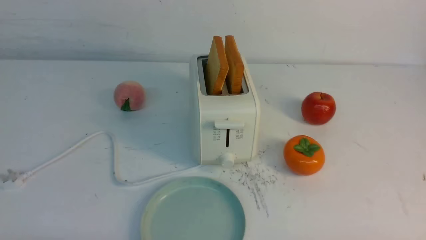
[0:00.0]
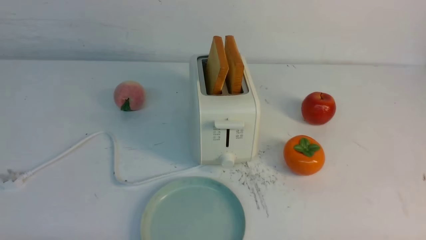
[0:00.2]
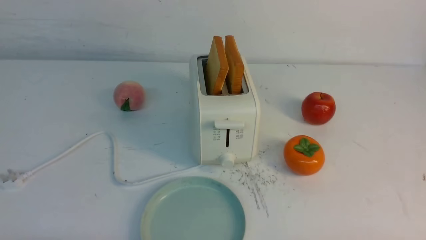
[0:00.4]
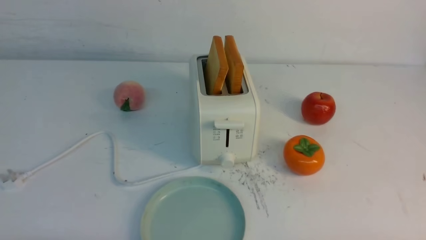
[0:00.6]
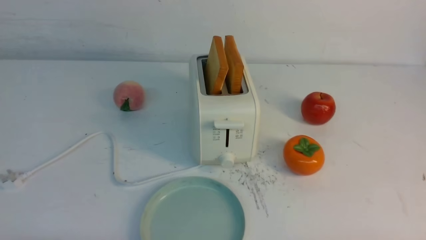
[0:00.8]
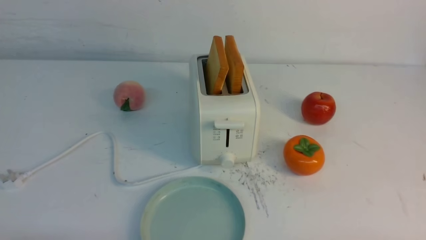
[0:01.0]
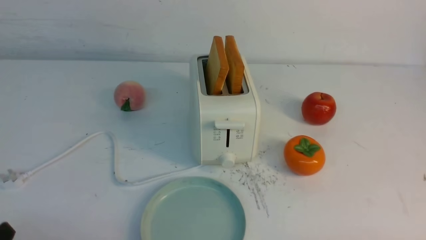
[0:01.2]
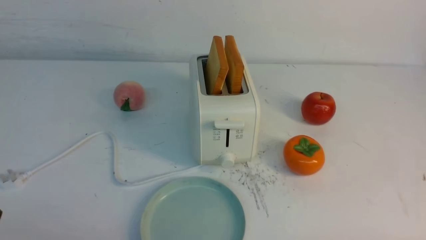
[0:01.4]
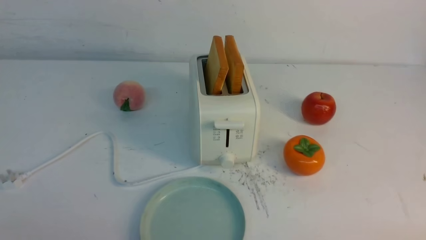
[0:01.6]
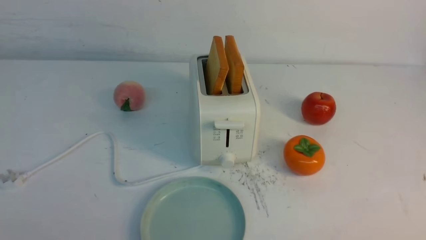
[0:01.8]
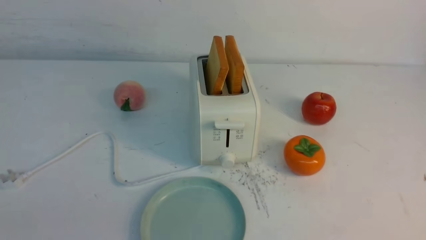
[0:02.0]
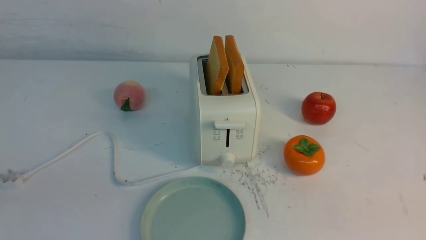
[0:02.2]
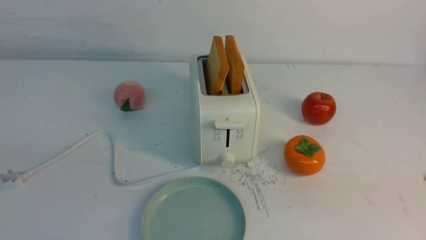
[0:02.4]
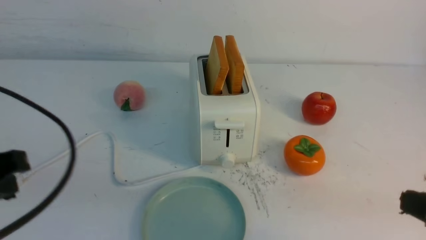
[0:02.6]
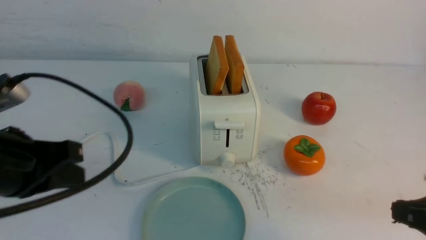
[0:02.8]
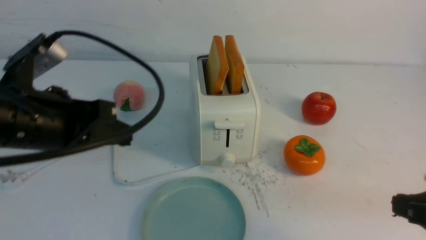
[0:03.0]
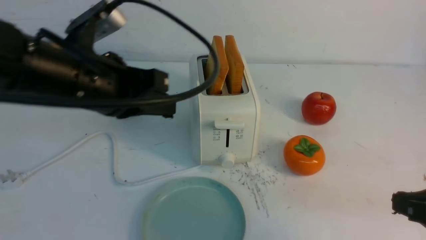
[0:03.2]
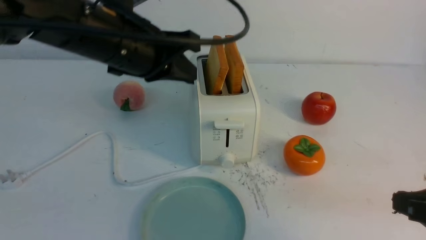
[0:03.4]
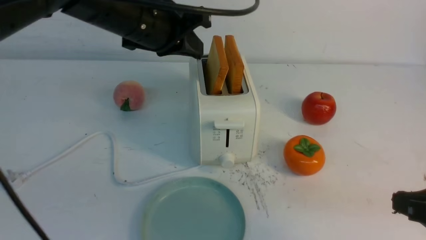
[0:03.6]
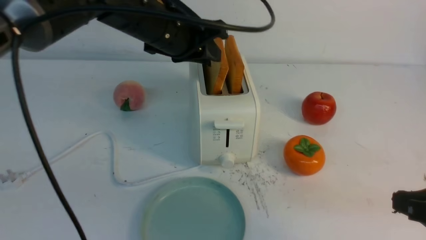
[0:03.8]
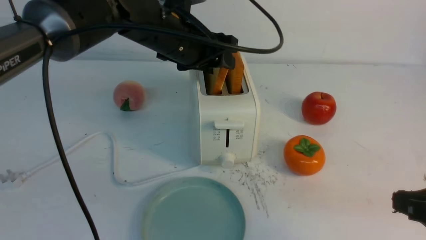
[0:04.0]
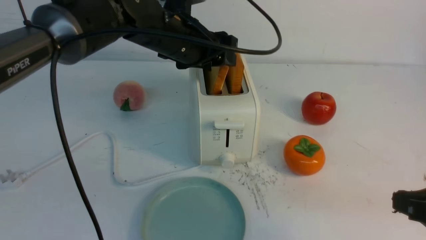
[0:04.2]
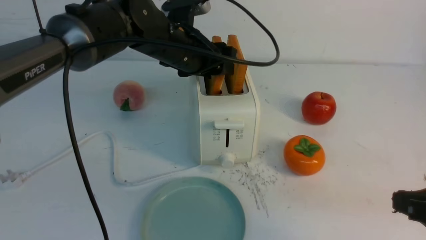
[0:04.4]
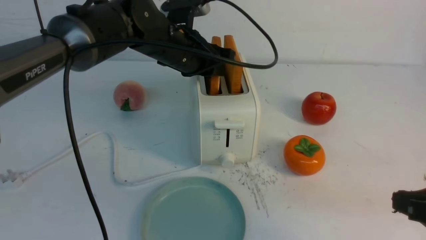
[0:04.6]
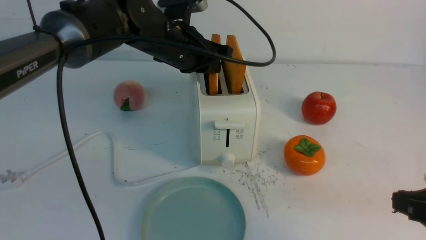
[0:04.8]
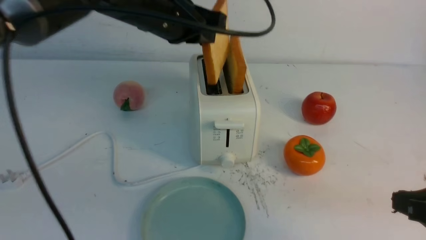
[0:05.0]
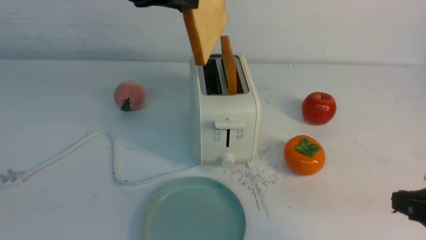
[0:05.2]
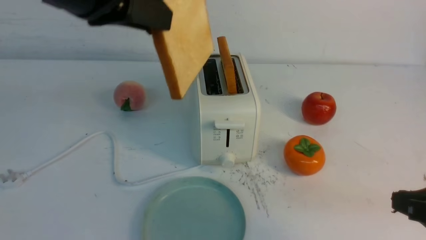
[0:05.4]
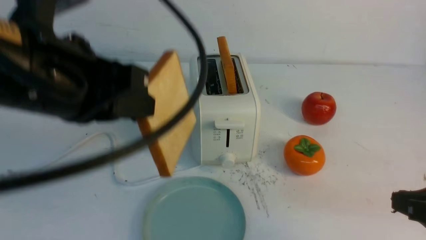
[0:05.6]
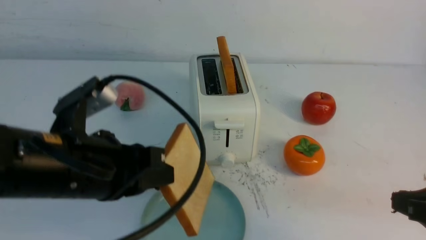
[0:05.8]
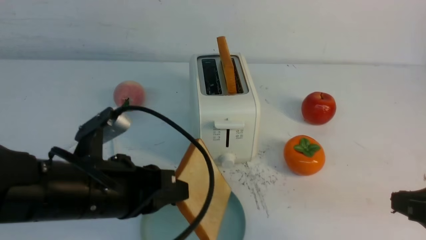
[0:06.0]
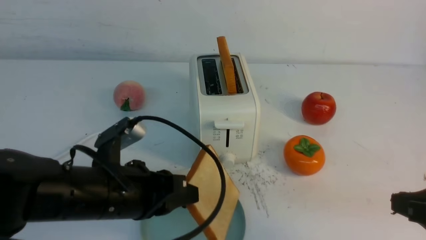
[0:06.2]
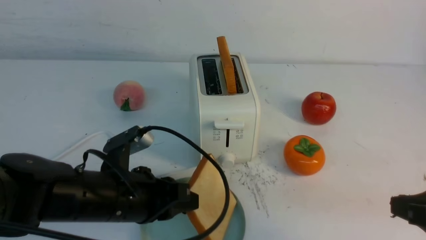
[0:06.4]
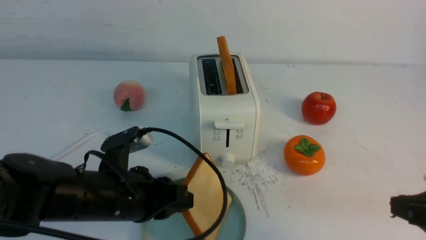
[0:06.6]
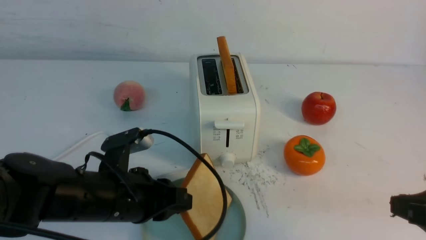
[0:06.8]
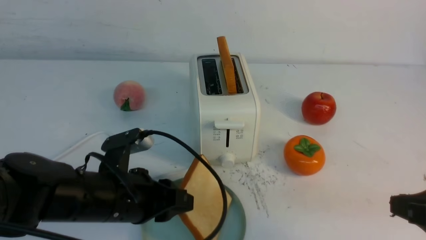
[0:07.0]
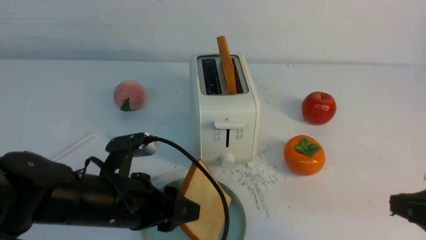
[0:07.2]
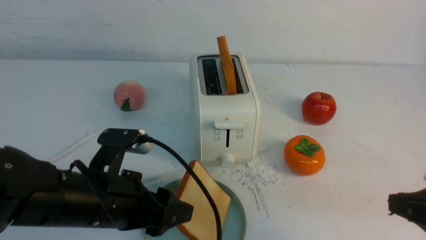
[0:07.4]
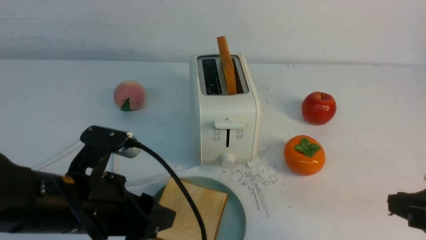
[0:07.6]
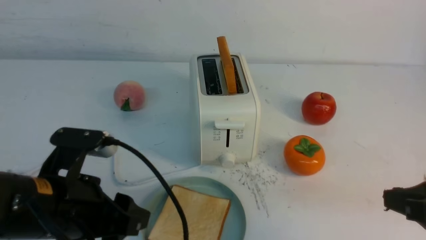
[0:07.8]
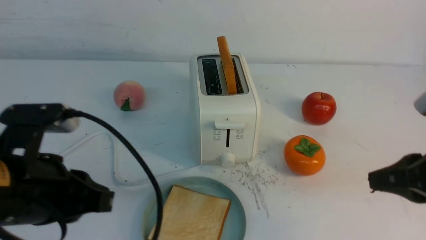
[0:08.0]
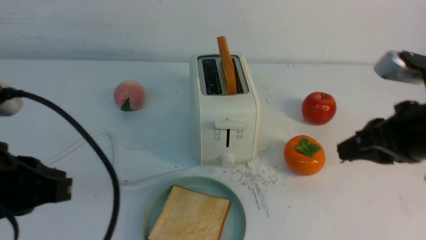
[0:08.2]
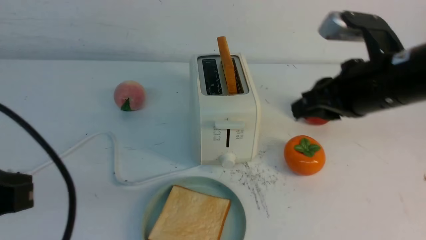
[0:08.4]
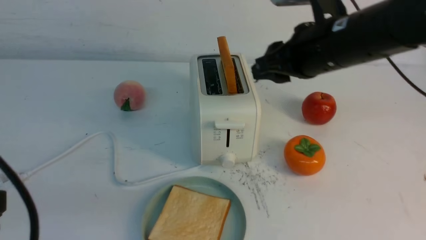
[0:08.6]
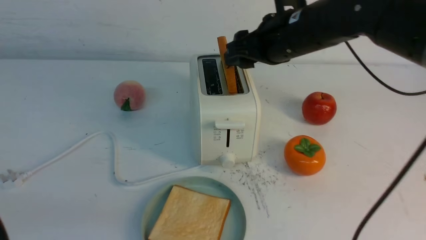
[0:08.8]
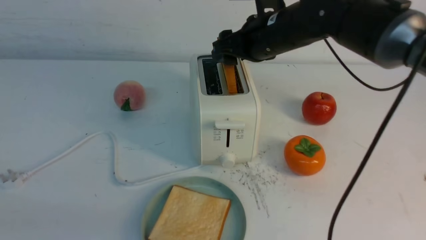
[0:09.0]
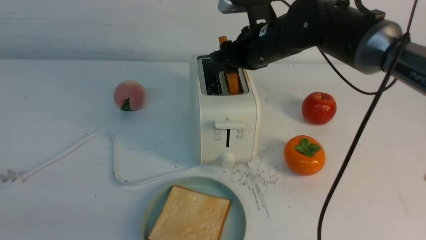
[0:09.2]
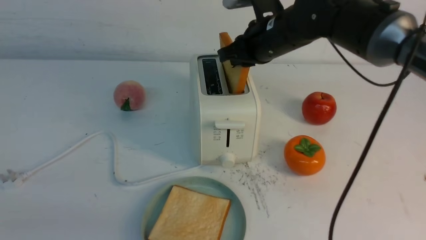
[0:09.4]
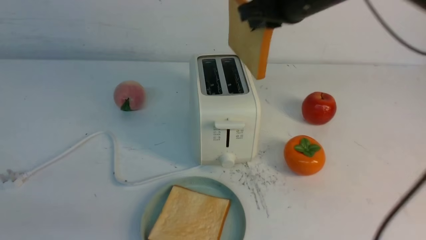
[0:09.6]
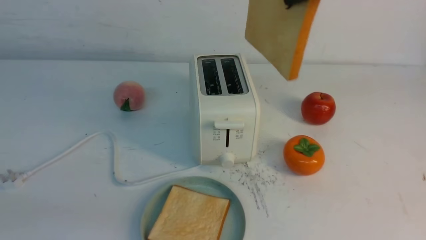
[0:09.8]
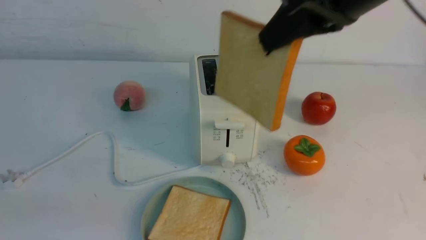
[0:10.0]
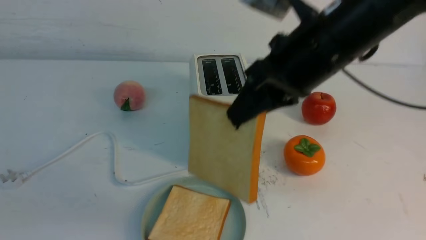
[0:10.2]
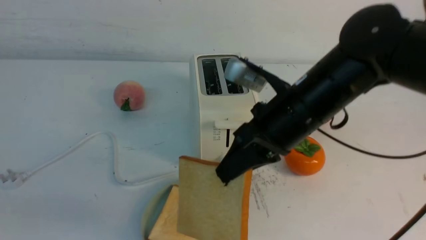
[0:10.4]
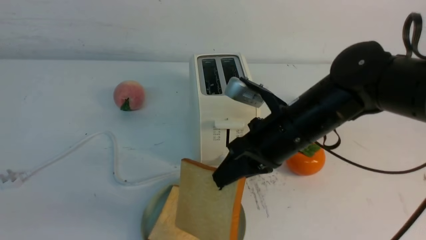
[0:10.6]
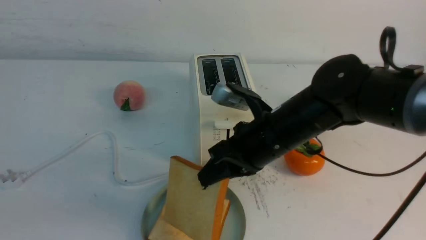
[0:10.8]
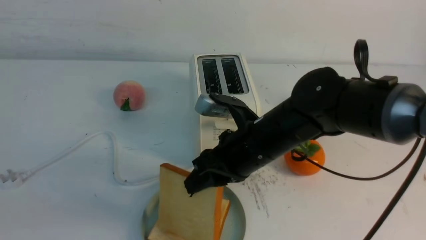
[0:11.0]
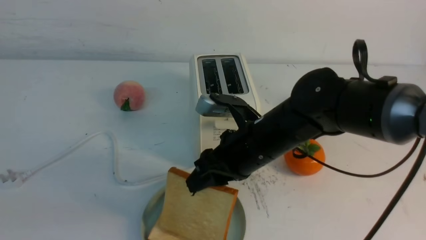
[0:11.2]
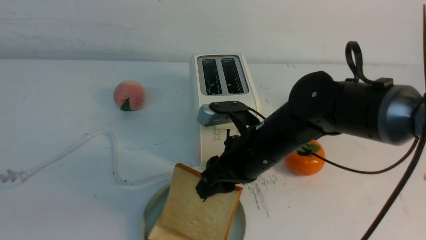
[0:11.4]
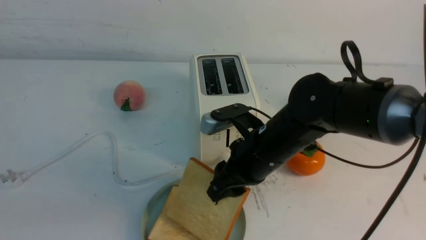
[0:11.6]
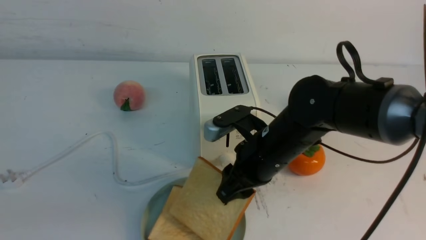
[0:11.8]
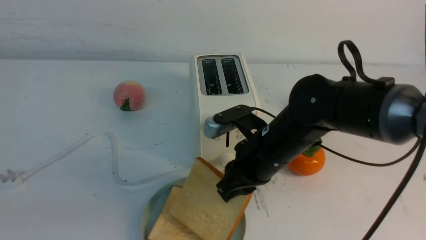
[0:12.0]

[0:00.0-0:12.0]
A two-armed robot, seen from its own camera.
Task of the whole recording: take toasted bread from bread machine on white table place on plate.
Step, 0.0 to 5.2 s: use the left arm to take out a slice of bread.
Step, 5.4 to 7.6 s: use the left arm to put a slice of bread into the empty plate.
Step, 8.0 to 9.4 s: use the right arm to take out a slice of bread.
1.6 to 3.0 s: The right gripper moves upward and forward, about 15 cm, and closes up; the left gripper goes approximately 20 cm forward, upward and to the right, and closes its fingers.
3.0 to 4.4 s: The left gripper goes some 25 cm forward and to the right, and opens up.
4.4 to 6.0 s: The left gripper is displaced backward by some 20 cm, and closes its fingers.
6.0 to 7.6 s: The left gripper opens.
7.6 to 9.0 s: The left gripper travels backward, to the left and upward by about 20 cm, and closes its fingers. The right gripper goes some 30 cm forward and to the left, and opens up.
9.0 to 10.4 s: The right gripper shifts some 10 cm backward, reaches about 15 cm upward, then returns, and closes.
10.4 to 12.0 s: The right gripper heads downward, covering some 10 cm.

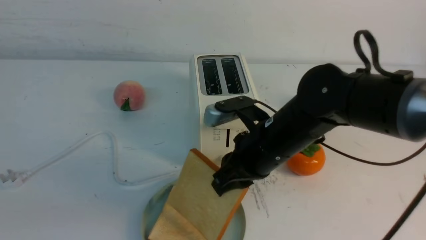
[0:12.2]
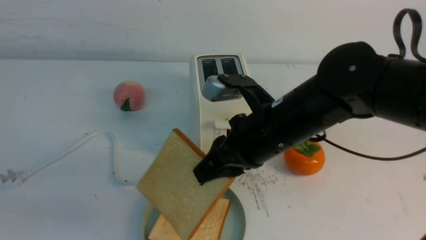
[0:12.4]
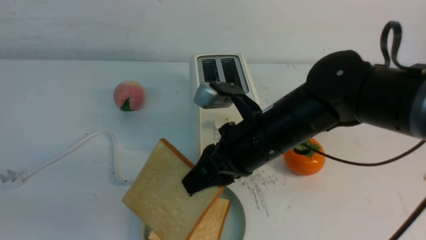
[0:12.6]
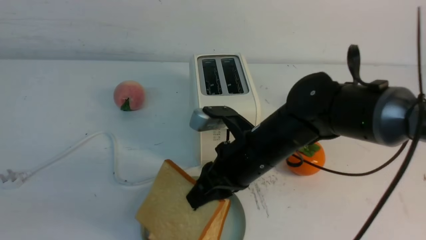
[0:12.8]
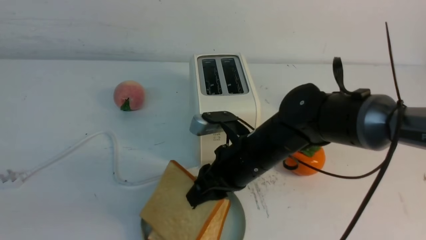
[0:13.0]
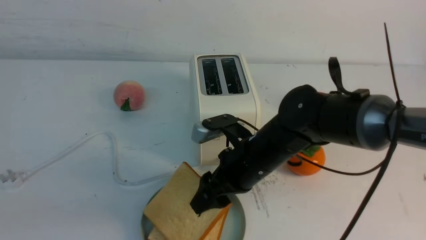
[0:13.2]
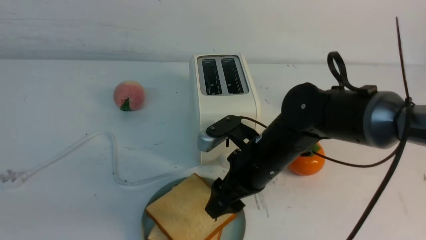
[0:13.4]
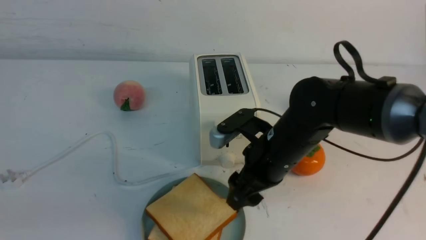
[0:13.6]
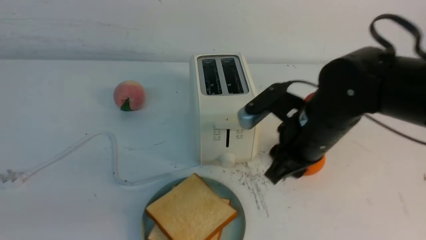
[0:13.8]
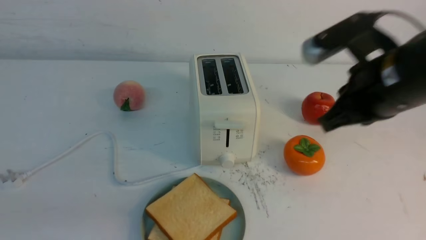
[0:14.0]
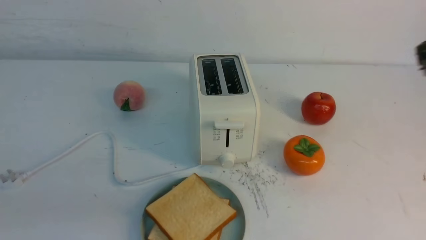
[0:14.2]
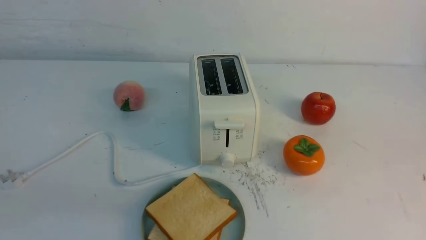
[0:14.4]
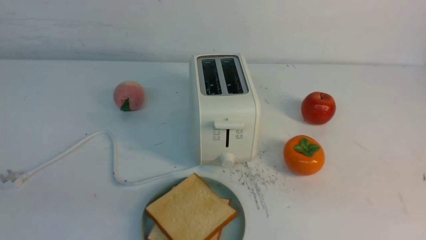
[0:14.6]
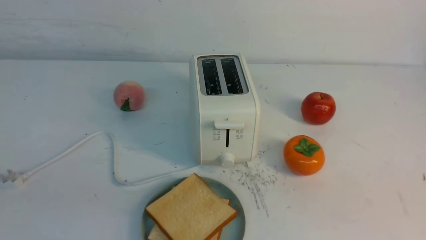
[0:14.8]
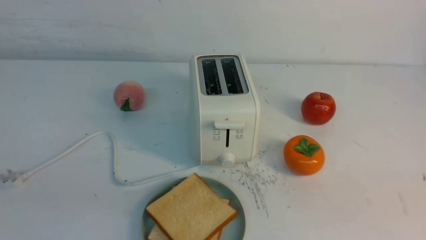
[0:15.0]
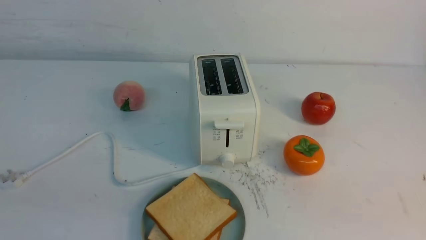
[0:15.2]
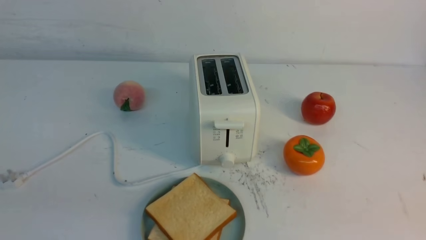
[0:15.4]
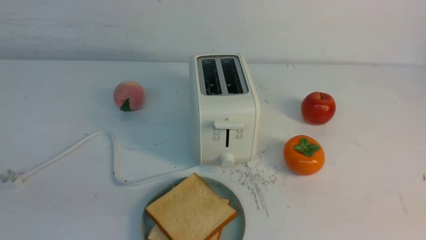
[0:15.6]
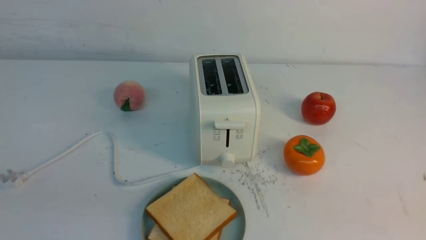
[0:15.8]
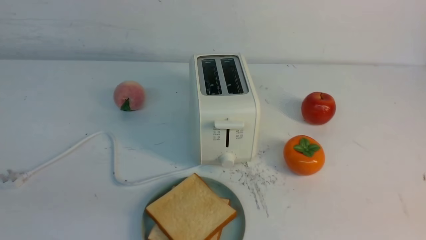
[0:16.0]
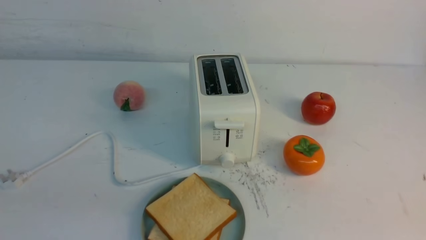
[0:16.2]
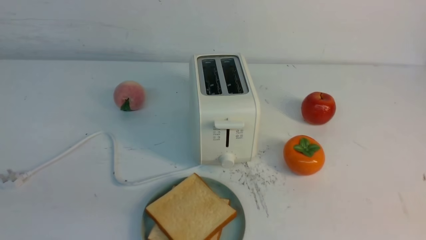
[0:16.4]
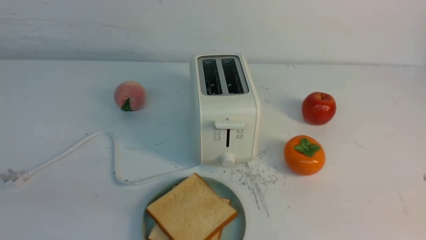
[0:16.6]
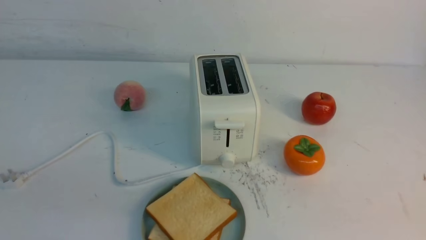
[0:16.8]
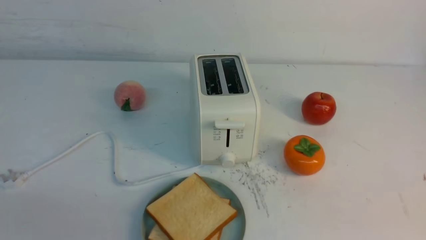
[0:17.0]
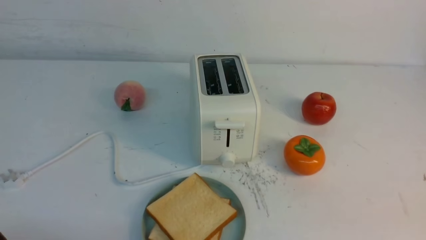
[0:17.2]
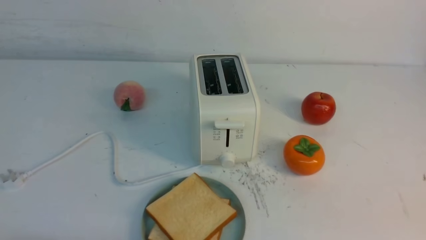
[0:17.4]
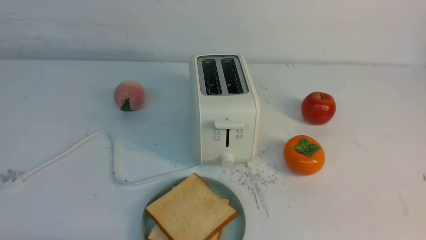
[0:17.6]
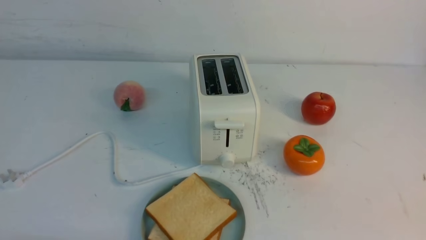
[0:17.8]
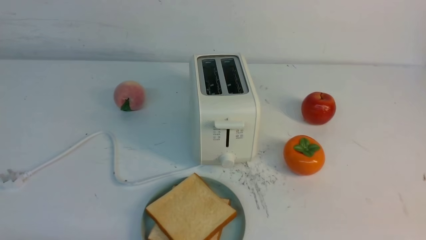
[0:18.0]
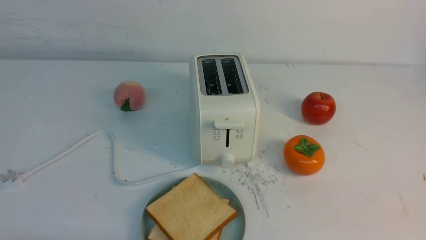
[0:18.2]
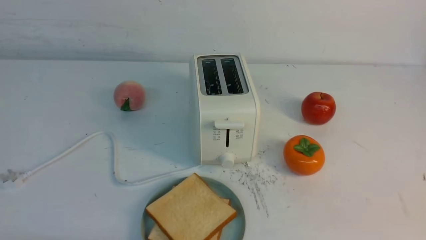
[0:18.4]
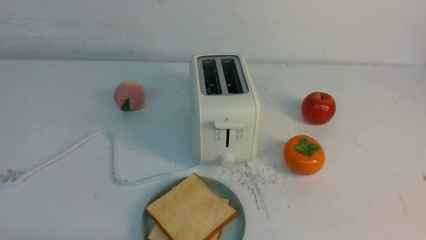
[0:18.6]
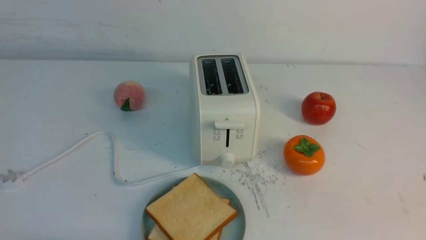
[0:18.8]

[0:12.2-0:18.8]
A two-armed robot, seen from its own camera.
Task of the whole recording: take toasted bread from bread machine on white table place on plate.
12.2 to 13.8 s: The right gripper shifts some 5 cm to the right, and opens and closes again.
13.8 to 15.4 s: The right gripper travels backward and to the right by about 30 cm, and closes up.
